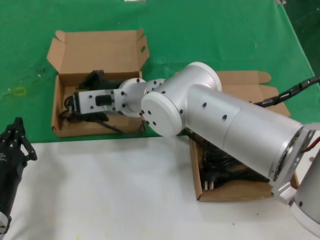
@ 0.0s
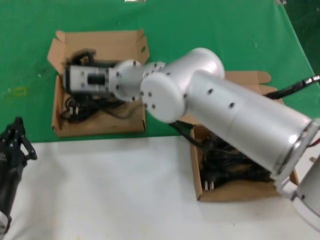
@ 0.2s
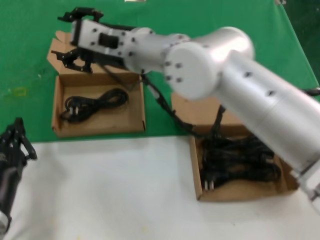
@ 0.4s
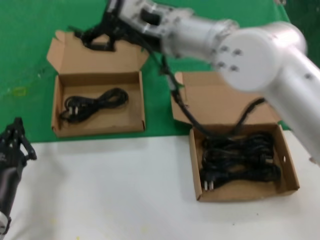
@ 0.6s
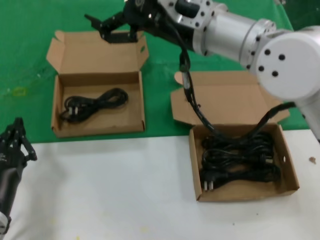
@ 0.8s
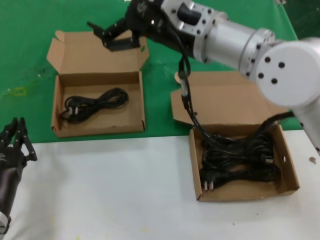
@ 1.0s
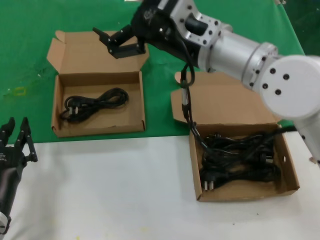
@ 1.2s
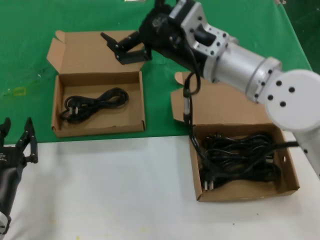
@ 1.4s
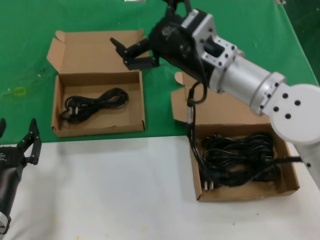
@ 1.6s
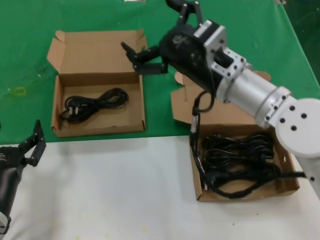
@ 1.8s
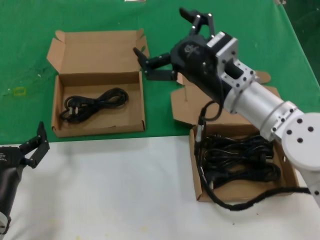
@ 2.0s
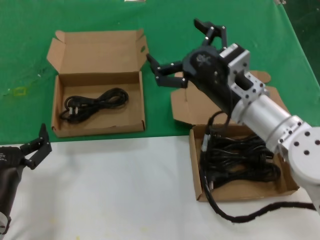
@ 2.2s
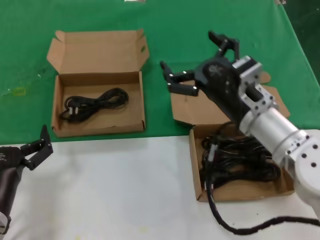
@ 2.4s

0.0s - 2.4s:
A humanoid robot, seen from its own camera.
Task of the whole recording: pick up the paper box and put it at the back.
0.0s - 1.2s: The right hand is displaced to the right, upward and backward by approximately 20 cm.
1.2s - 2.4s: The right hand goes about 15 cm downward and to the right.
